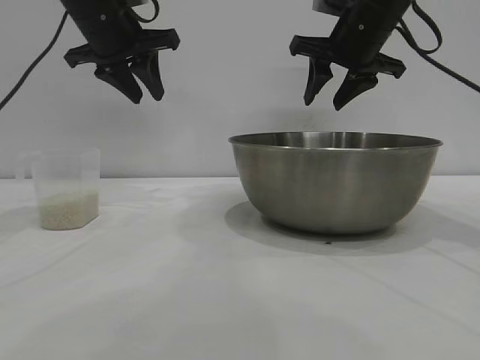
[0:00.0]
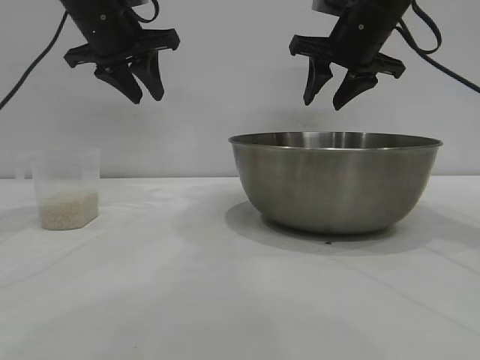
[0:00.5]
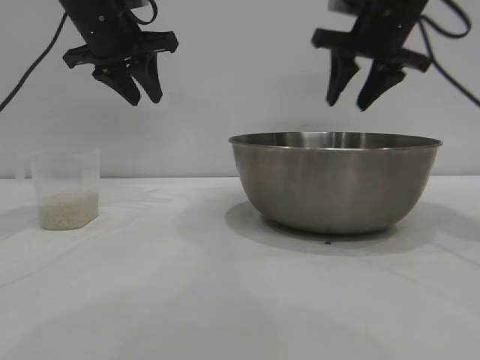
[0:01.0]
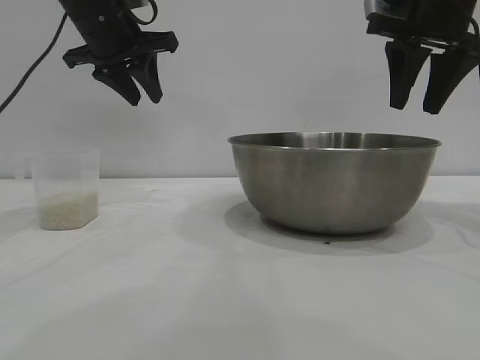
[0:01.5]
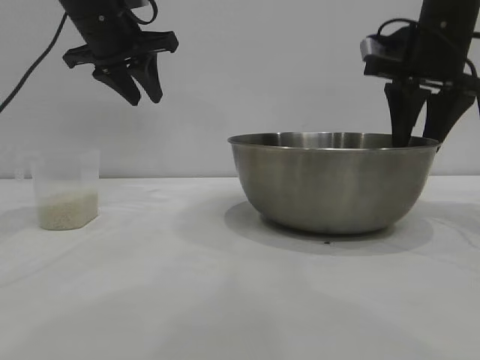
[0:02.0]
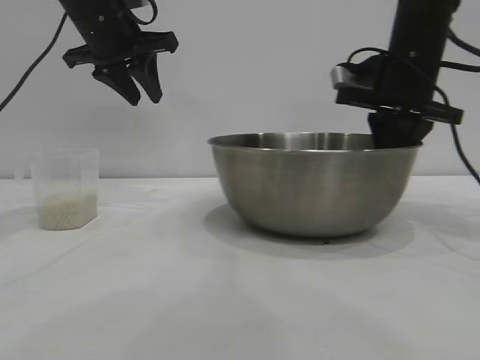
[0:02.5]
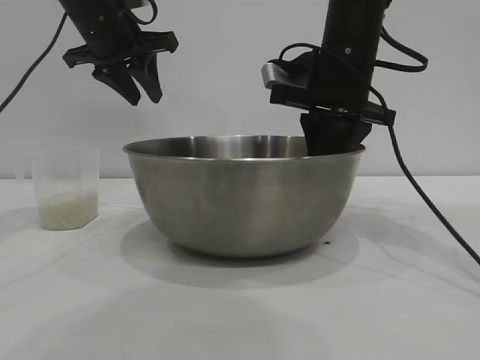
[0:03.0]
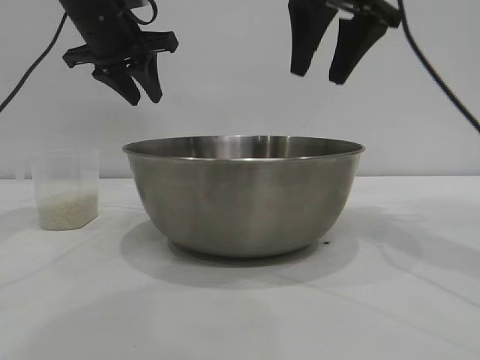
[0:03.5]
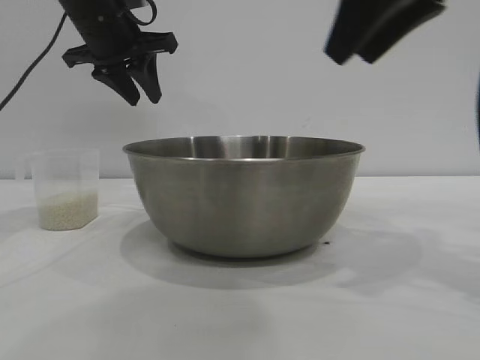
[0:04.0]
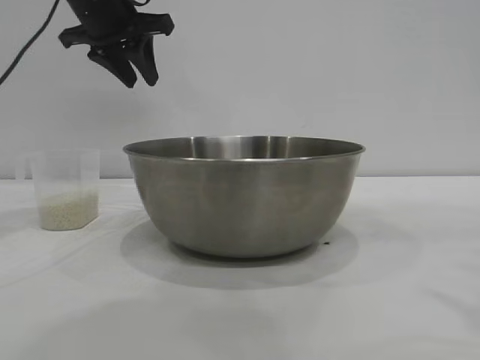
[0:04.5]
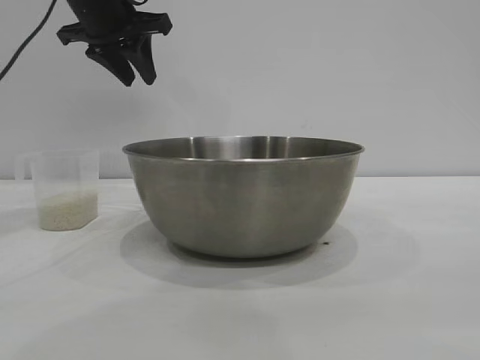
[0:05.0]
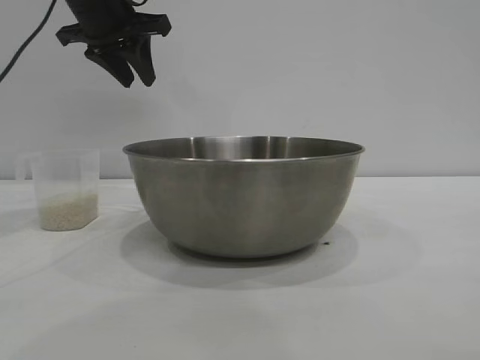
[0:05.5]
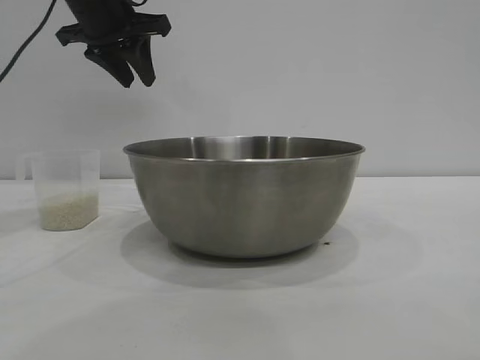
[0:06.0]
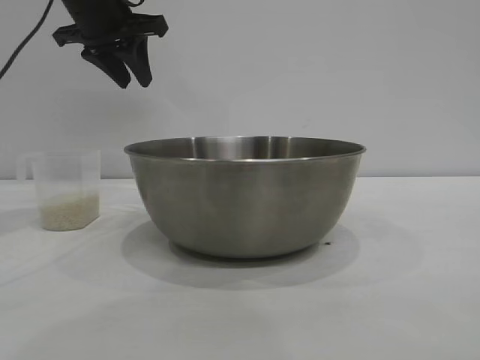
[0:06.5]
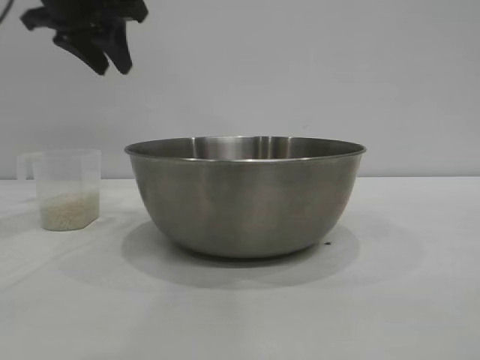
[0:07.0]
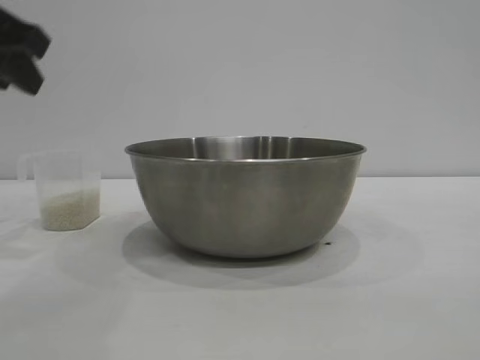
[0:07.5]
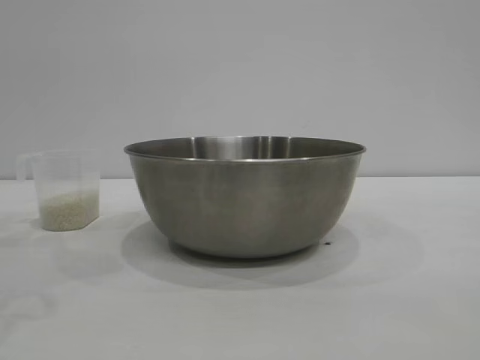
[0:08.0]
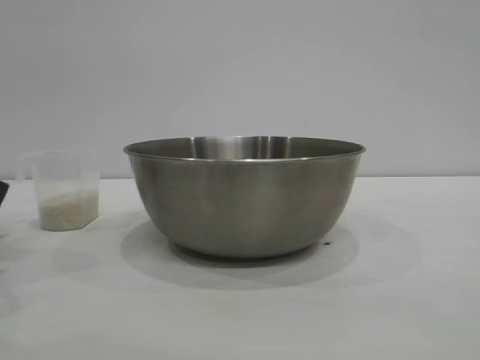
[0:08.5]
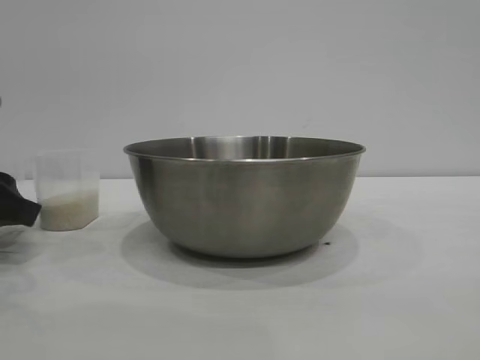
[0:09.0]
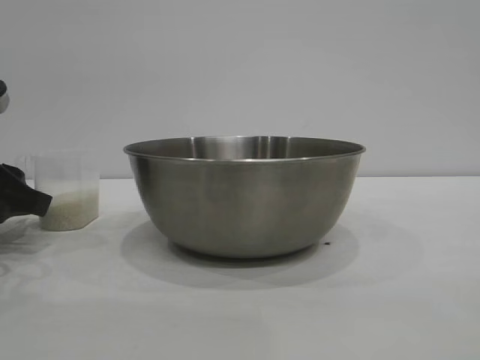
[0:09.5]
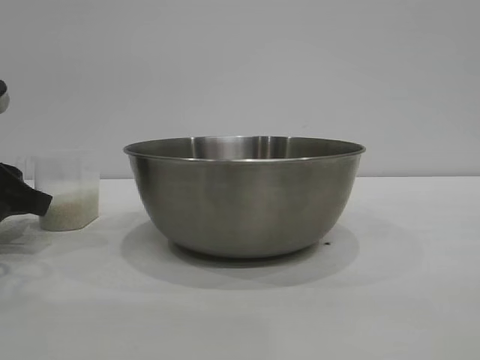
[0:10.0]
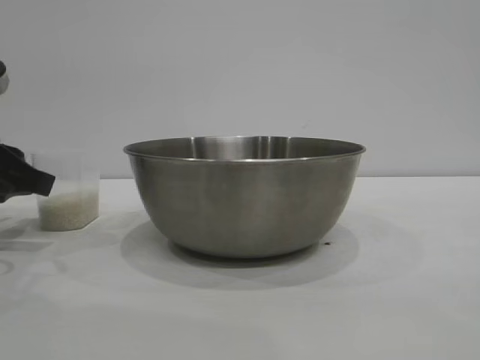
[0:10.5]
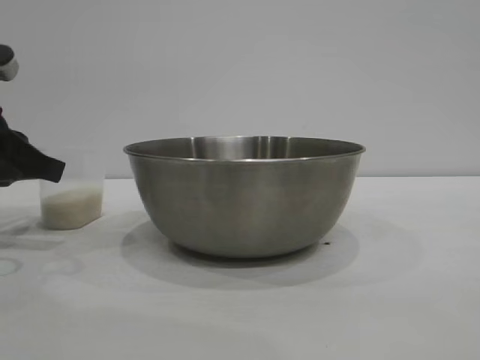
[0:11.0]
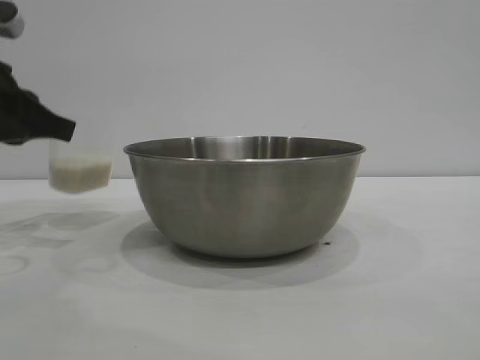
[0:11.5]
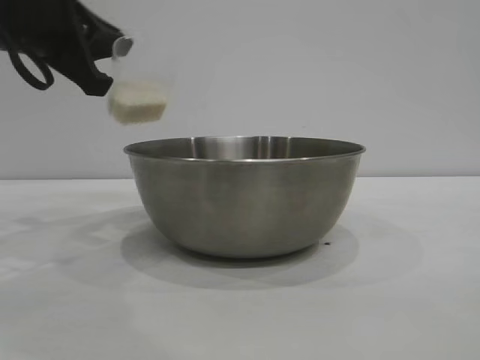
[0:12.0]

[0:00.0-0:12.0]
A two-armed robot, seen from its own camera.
Task of the whole recording: the right gripper grasp the rice container and place it in the center of the table, the left gripper grasp the rice scoop and pour the rice into the rice container.
Step, 0:00.0 to 0:03.5: Move the bowl to the center of view with the right gripper.
Step, 0:04.0 to 0:11.5: Pick up the cup with rice in it with the left gripper.

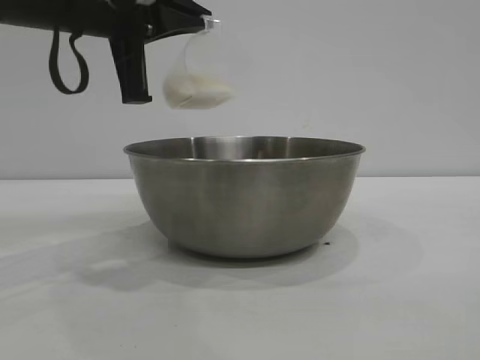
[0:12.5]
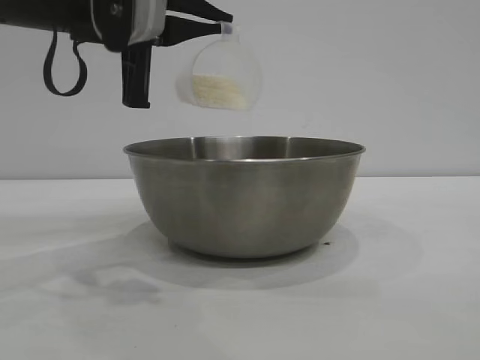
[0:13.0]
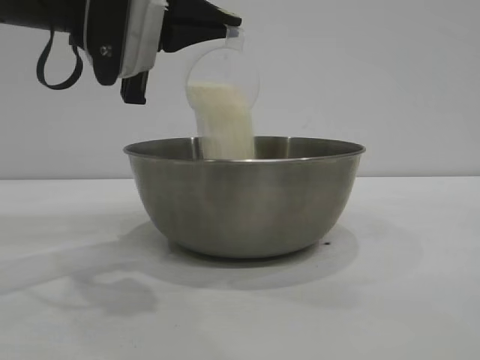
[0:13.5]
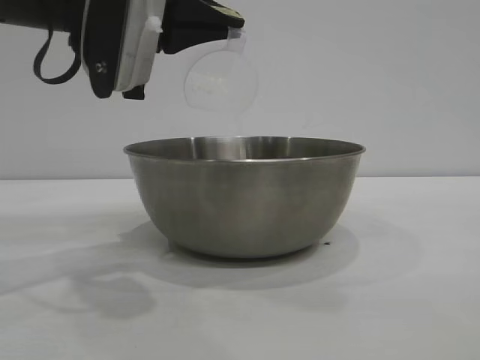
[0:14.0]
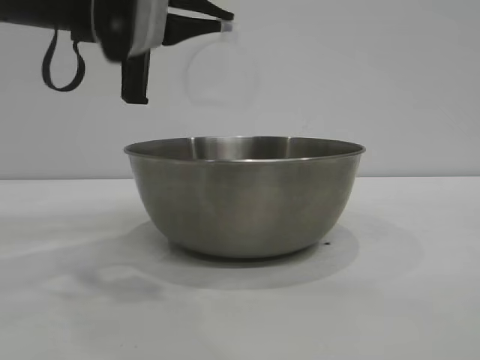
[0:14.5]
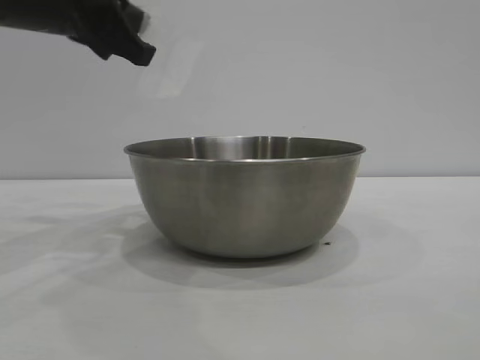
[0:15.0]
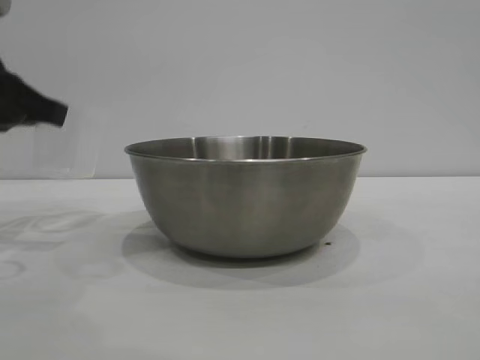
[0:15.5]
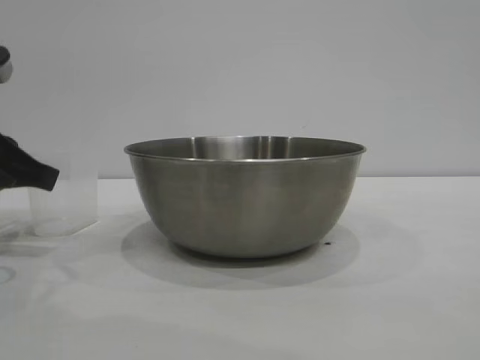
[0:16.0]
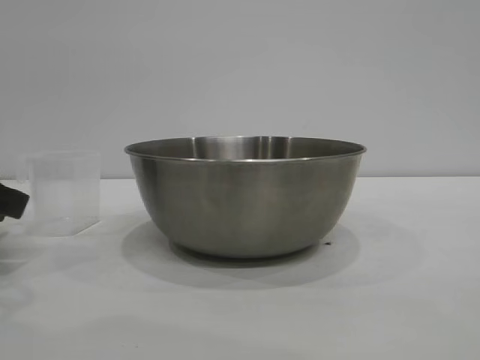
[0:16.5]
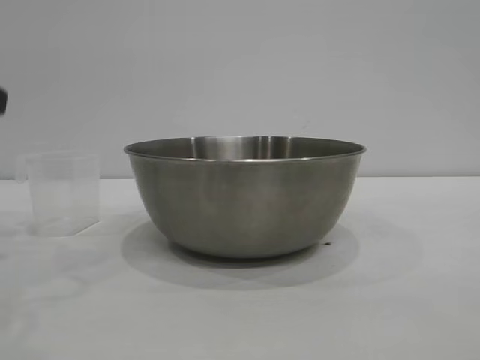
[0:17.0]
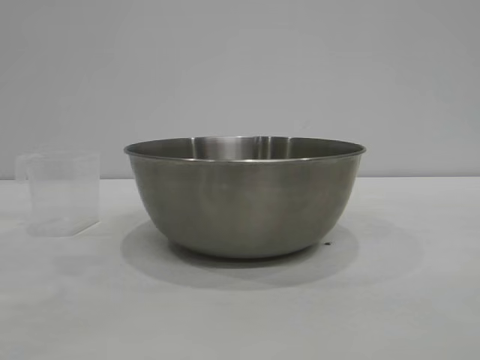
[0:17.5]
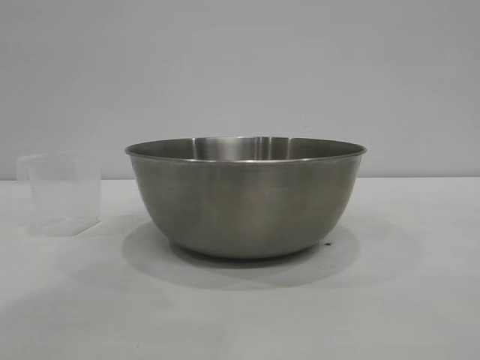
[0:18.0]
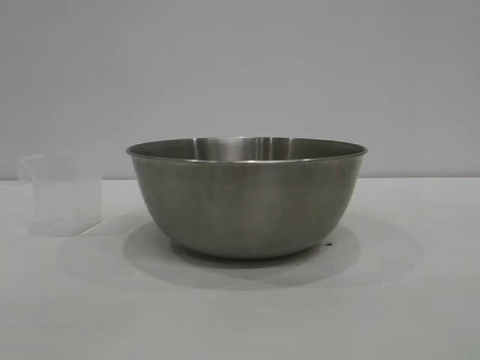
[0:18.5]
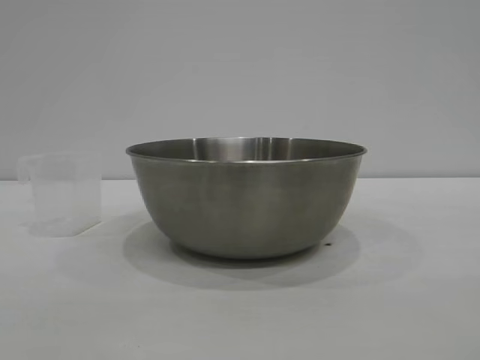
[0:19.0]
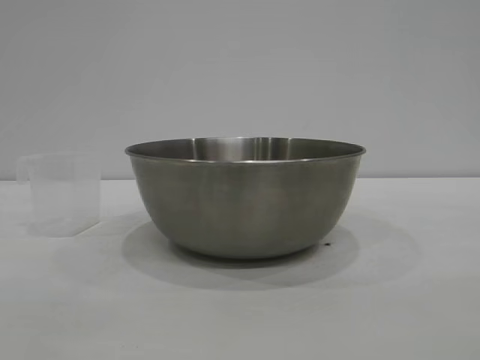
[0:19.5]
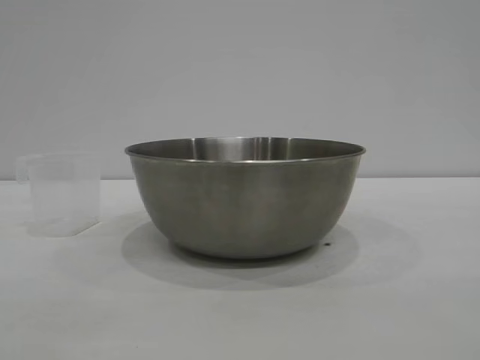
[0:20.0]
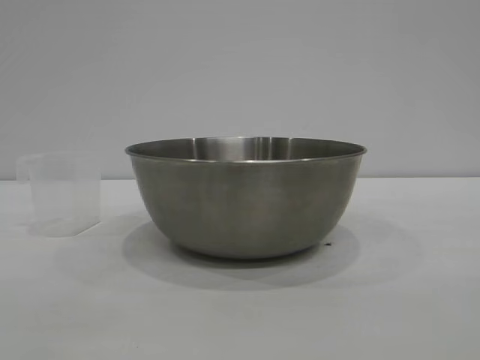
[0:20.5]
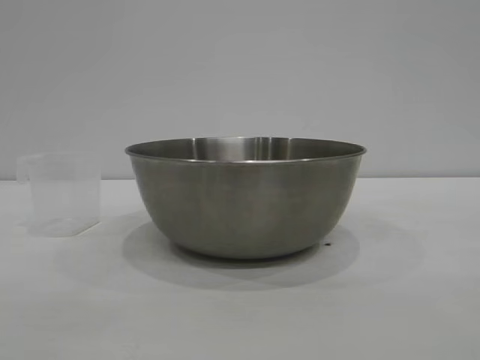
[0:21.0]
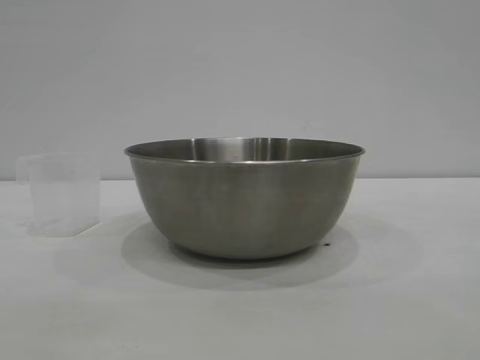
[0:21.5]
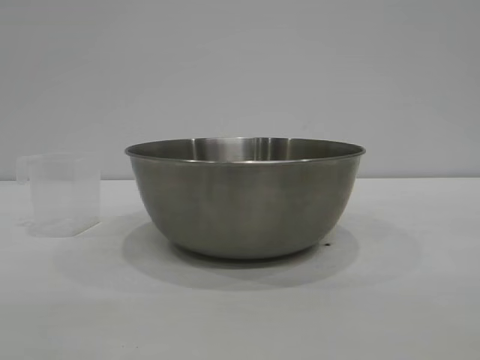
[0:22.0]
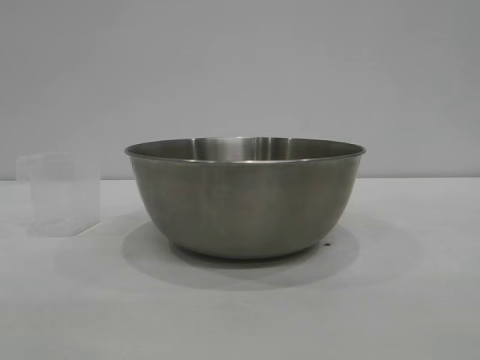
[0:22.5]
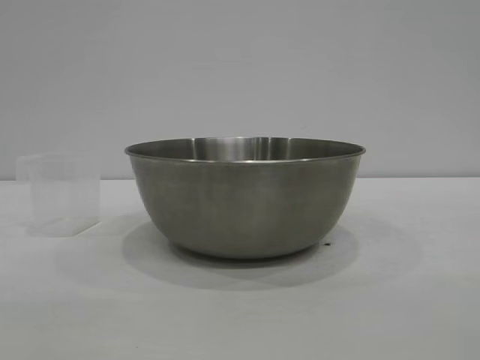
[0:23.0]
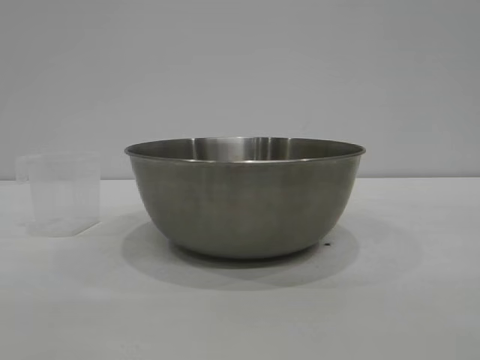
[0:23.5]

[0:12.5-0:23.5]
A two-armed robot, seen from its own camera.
Task of the whole recording: the right gripper grasp the rice container and place it in the center of the table, the left gripper grasp the rice scoop and pour the rice into the rice container.
Step, 0:12.5 to 0:14.0: Pour the rice from the cup into the bowl with the left gripper.
Step, 0:14.5 to 0:16.5: Place the cup on the table with the left gripper.

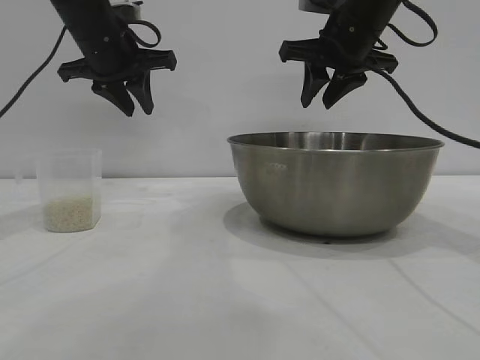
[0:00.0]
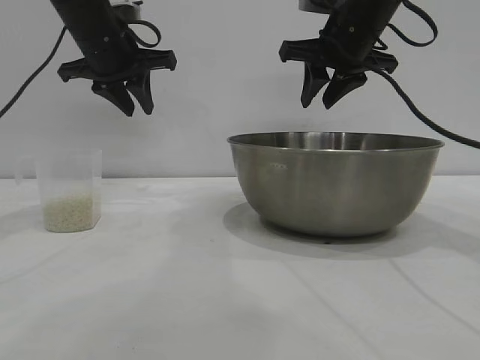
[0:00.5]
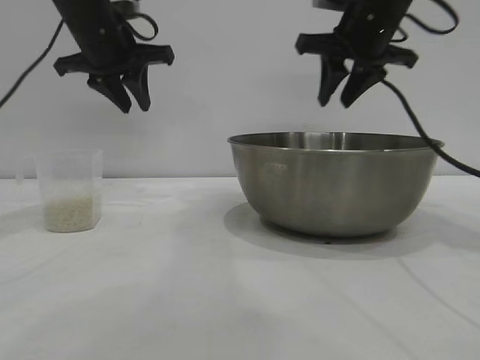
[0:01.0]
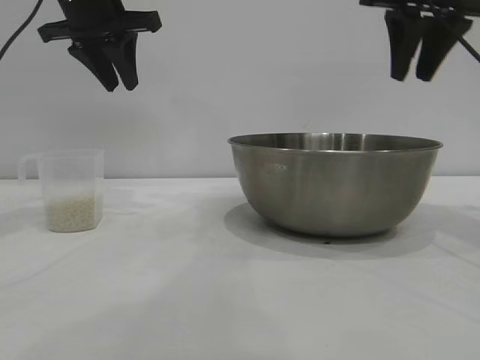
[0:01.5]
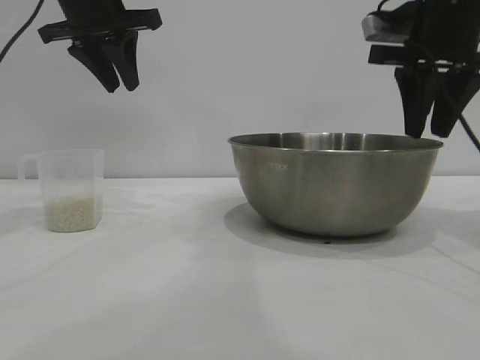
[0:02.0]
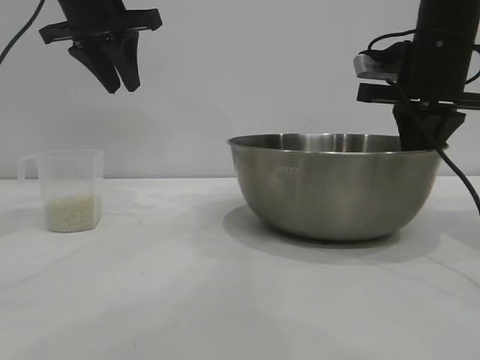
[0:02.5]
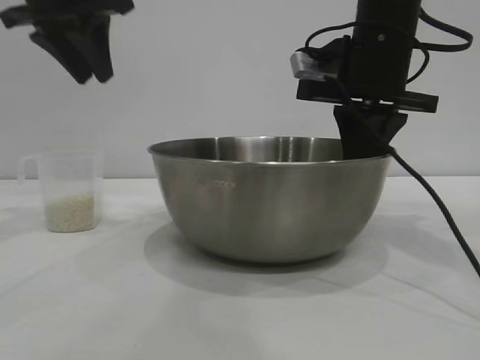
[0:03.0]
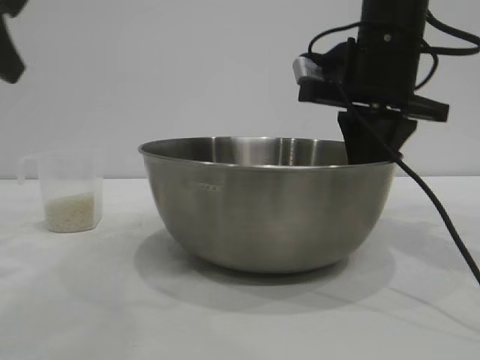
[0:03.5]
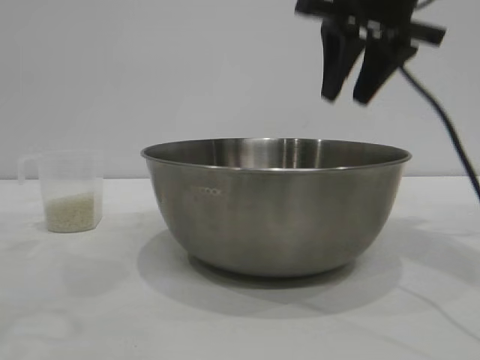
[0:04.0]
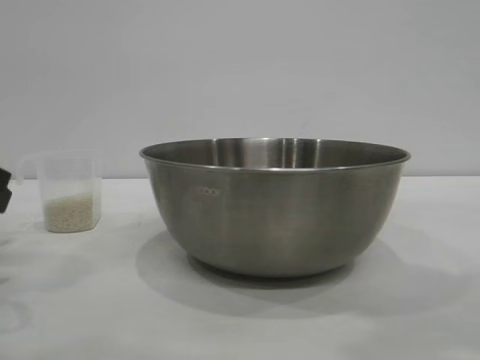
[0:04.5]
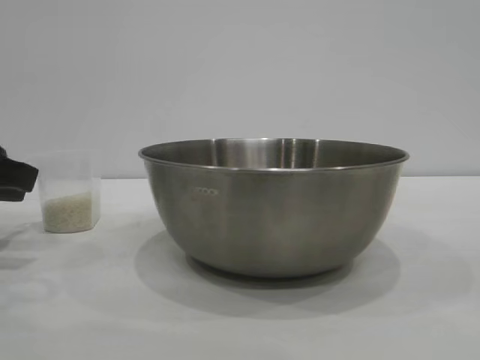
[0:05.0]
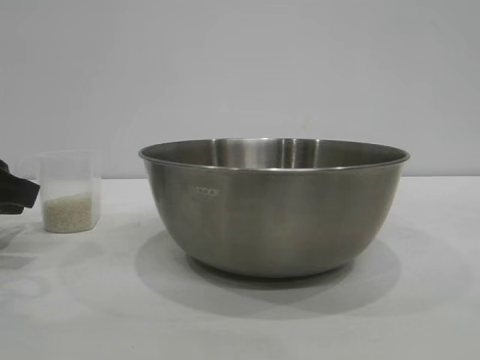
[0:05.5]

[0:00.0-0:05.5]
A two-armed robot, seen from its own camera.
Task of the whole recording: the right gripper grasp the rice container and place it in the center of the table, the left gripper grasp the rice scoop and pour the rice into the rice container.
Step, 0:00.0 to 0:04.0: Move the bowl to the center of view with the right gripper.
